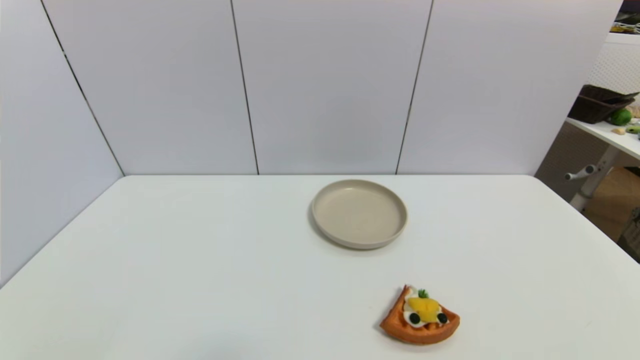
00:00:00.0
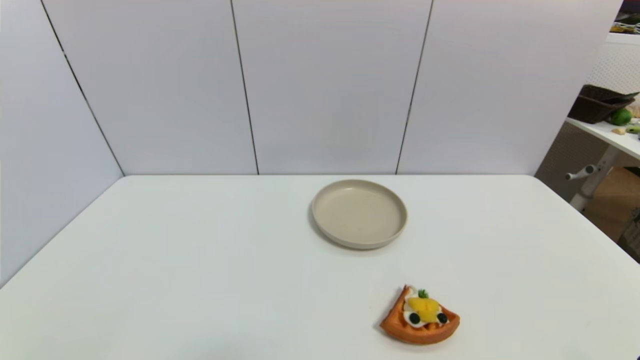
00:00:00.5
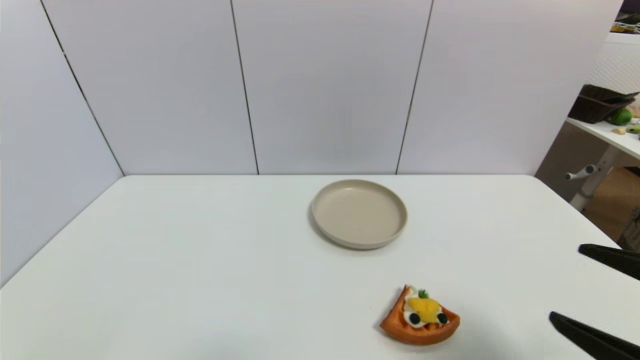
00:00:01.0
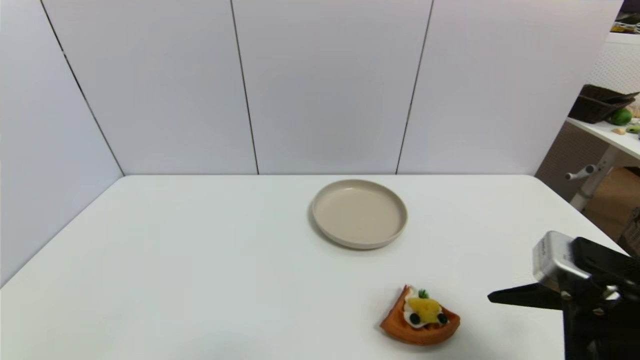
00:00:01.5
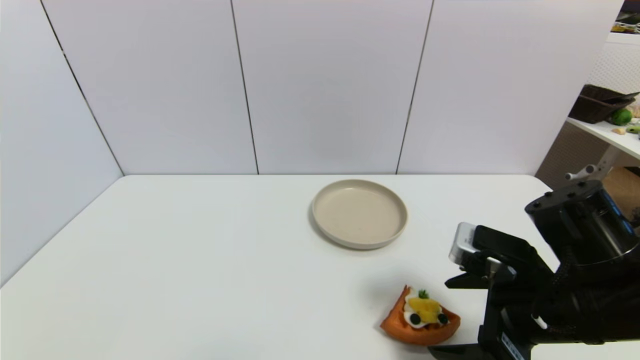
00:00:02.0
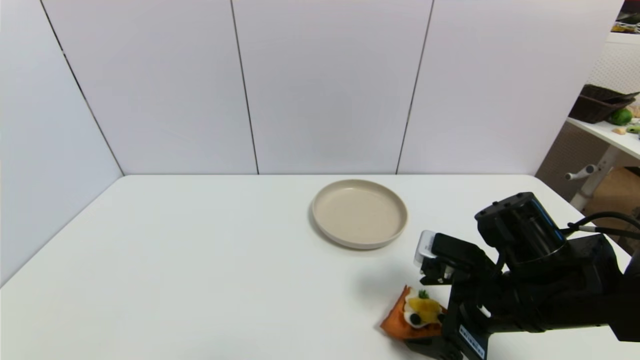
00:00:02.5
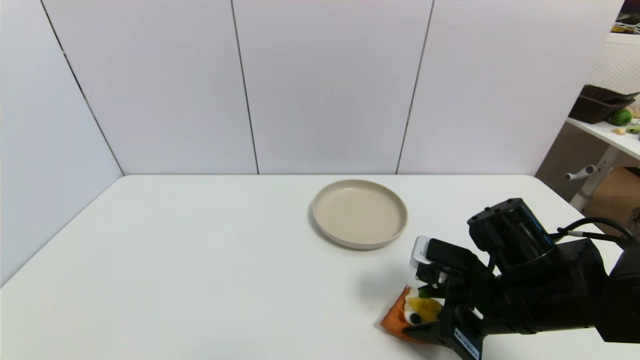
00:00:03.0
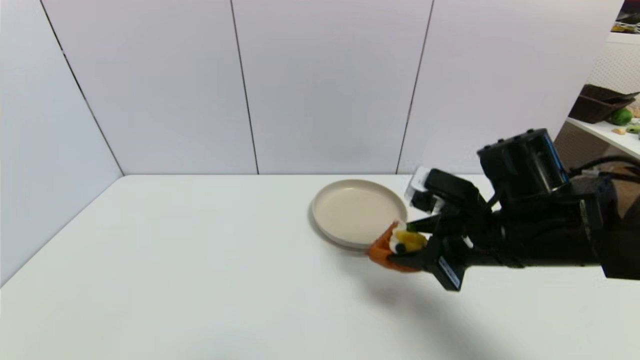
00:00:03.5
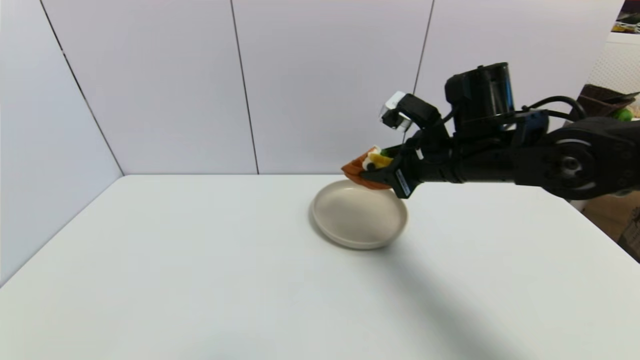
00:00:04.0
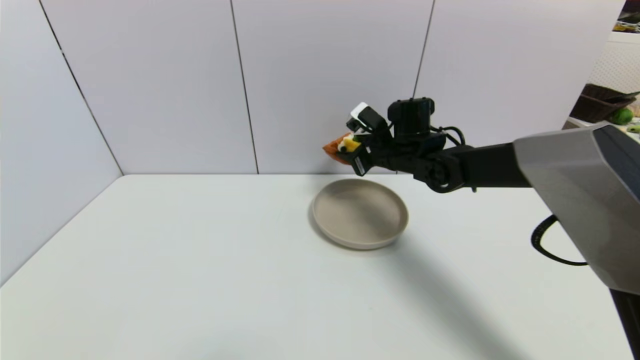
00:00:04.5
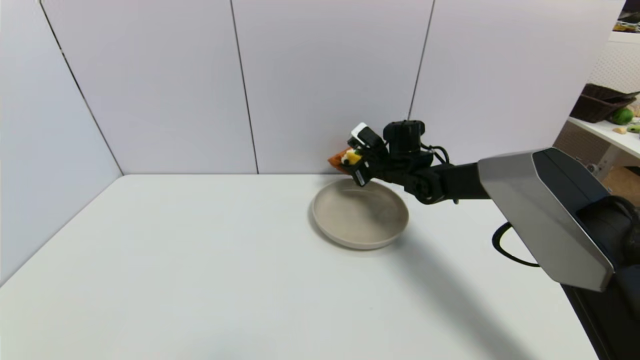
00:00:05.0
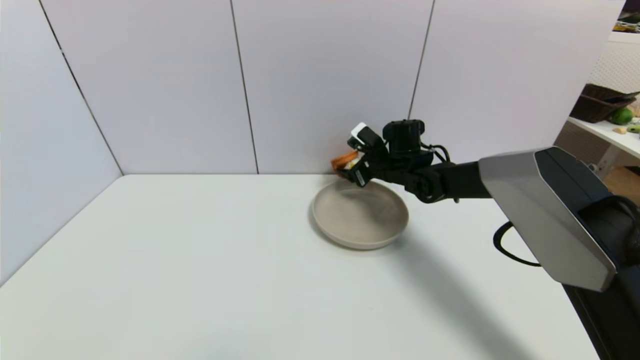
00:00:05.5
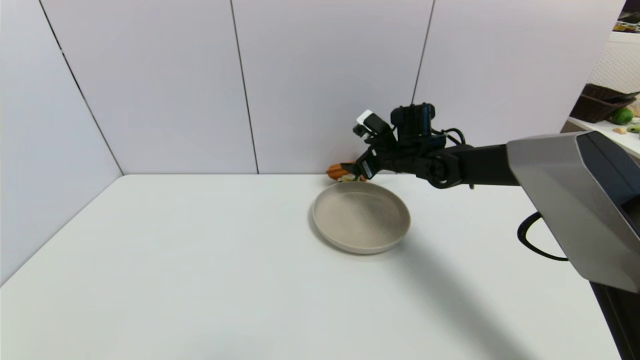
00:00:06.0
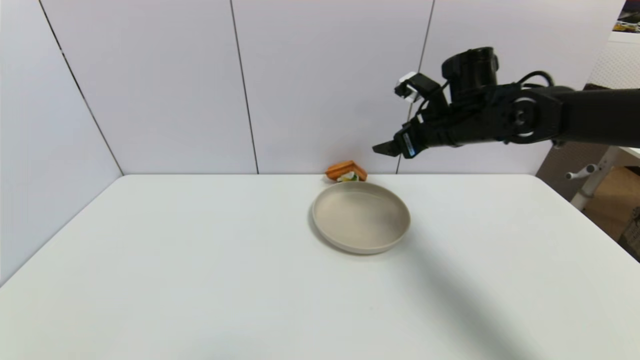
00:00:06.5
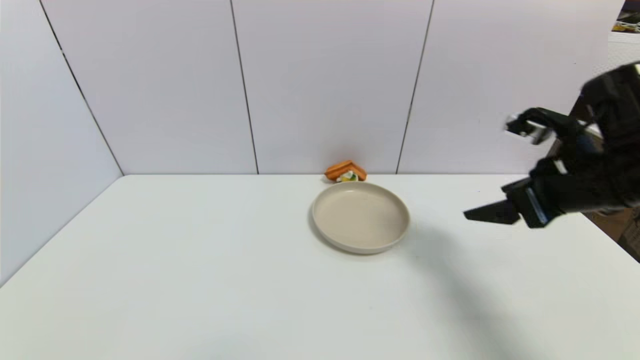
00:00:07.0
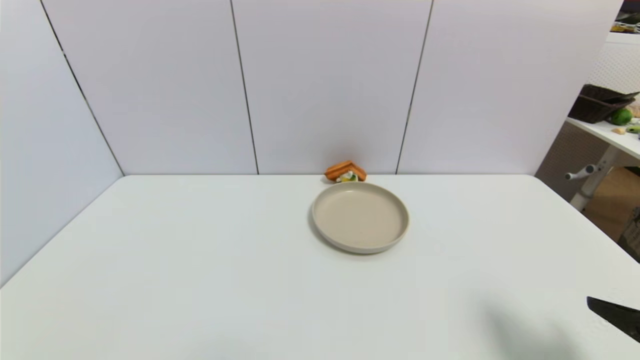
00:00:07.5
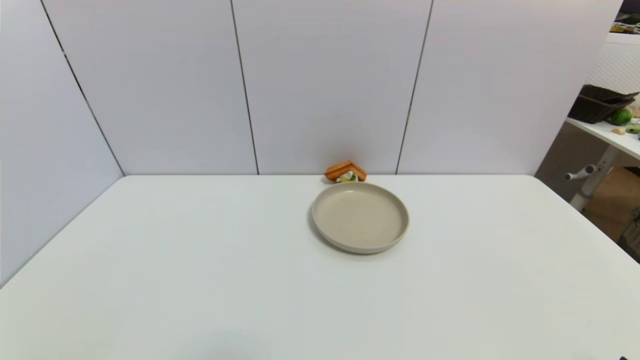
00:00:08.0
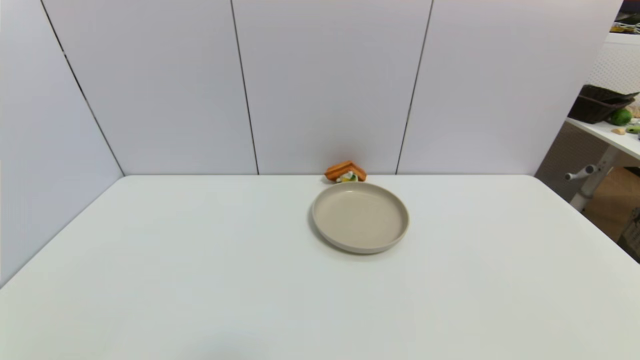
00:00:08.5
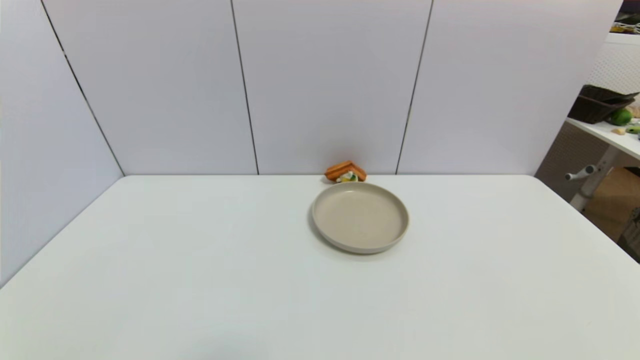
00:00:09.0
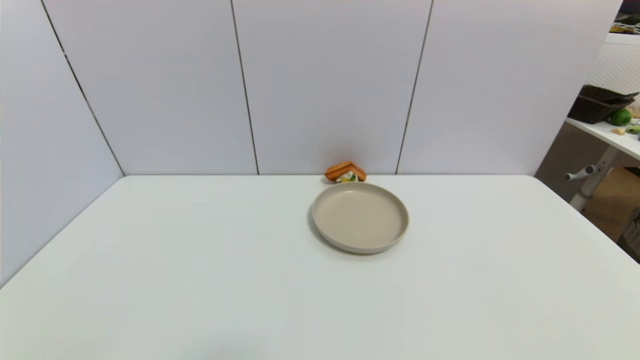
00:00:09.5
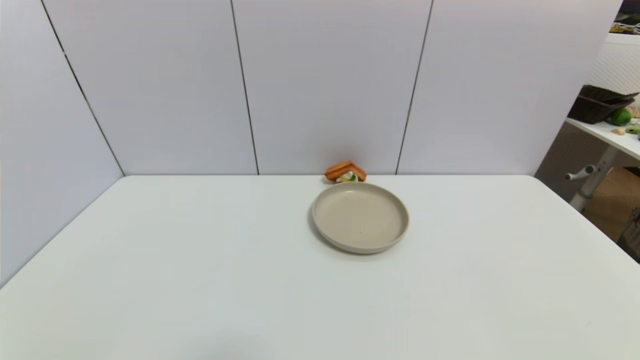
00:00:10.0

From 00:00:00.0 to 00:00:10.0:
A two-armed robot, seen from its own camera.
Step, from 00:00:00.0 to 00:00:03.0: Grasp the pizza with right gripper.
Step, from 00:00:03.5 to 00:00:06.0: Place the pizza on the table with right gripper.
From 00:00:00.0 to 00:00:02.0: The right gripper moves forward, to the left and upward, roughly 25 cm.
From 00:00:02.0 to 00:00:04.0: The right gripper shifts about 15 cm forward and upward, and closes.
From 00:00:04.0 to 00:00:06.0: The right gripper travels forward and downward by about 15 cm, and opens its fingers.
From 00:00:06.0 to 00:00:08.0: The right gripper is displaced backward and to the right by roughly 50 cm.

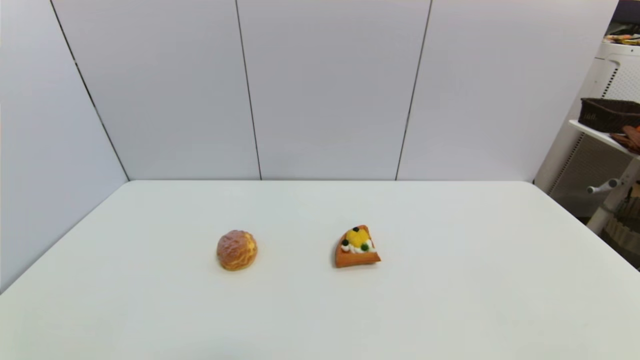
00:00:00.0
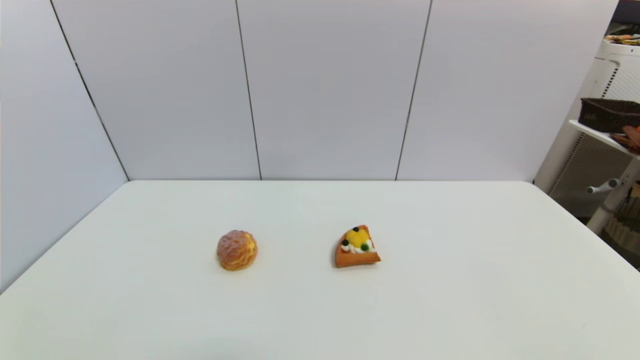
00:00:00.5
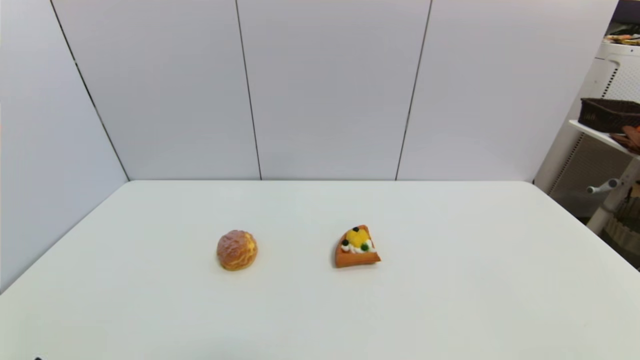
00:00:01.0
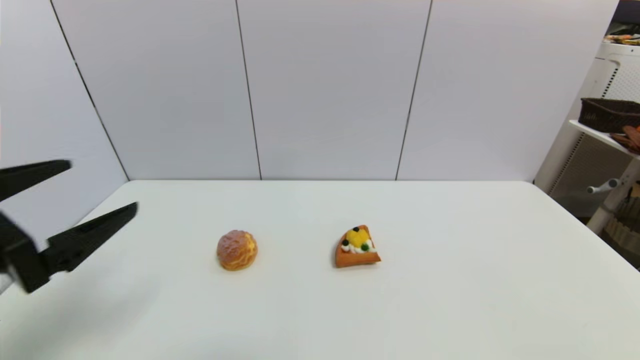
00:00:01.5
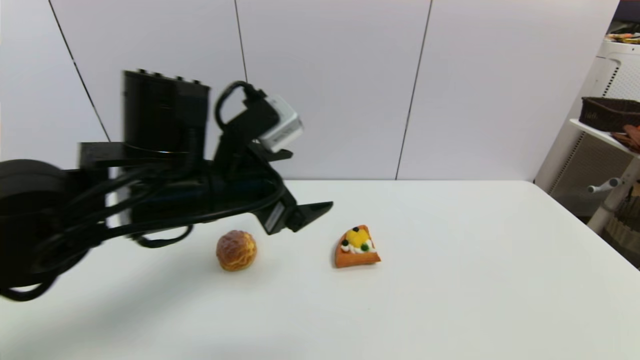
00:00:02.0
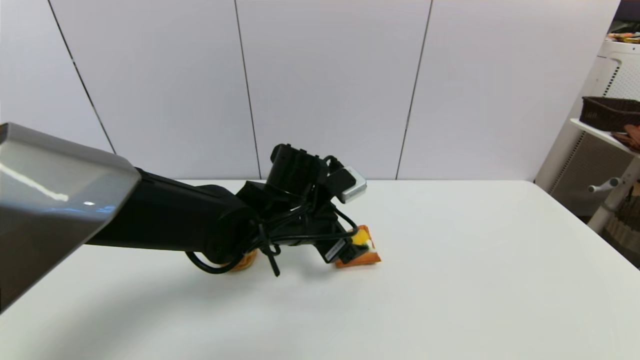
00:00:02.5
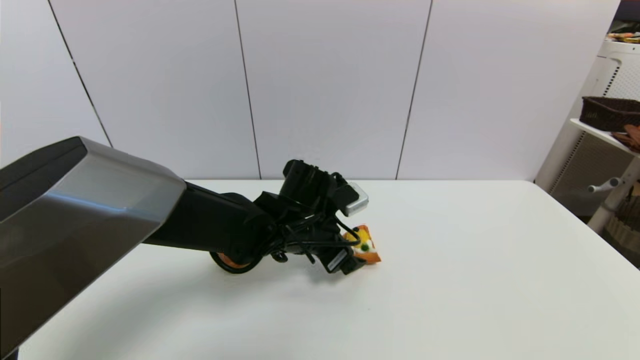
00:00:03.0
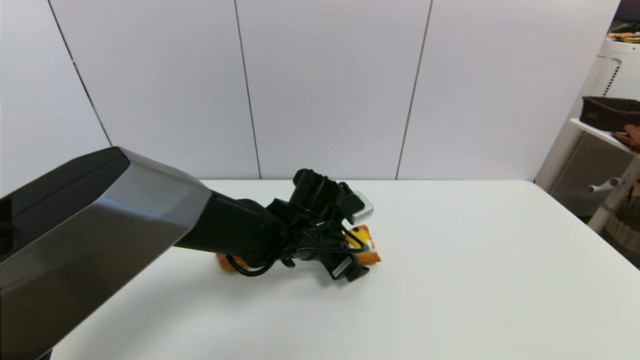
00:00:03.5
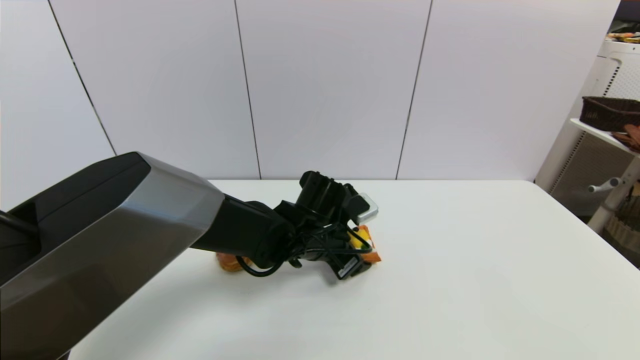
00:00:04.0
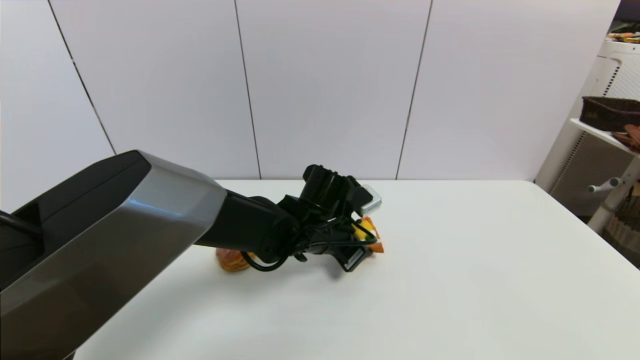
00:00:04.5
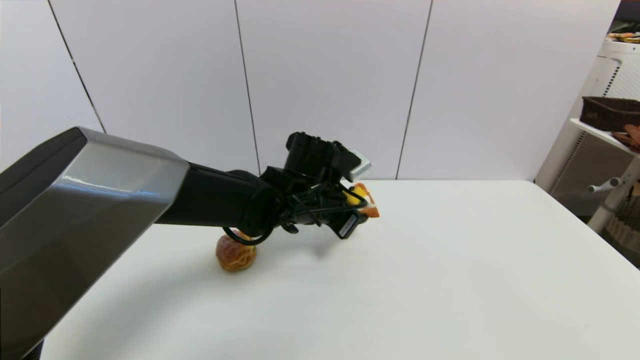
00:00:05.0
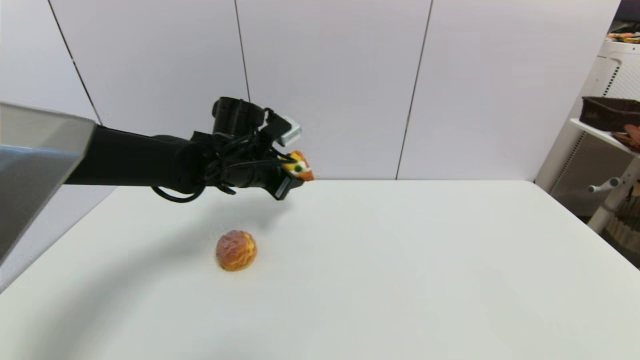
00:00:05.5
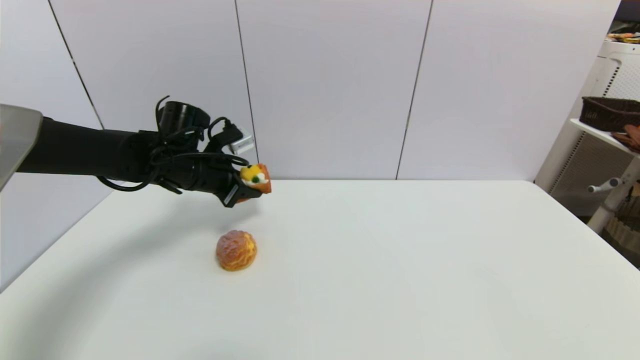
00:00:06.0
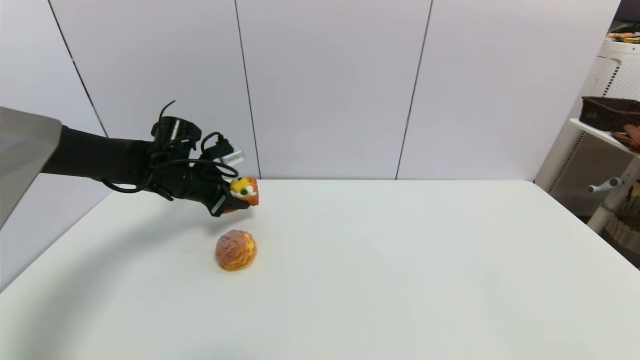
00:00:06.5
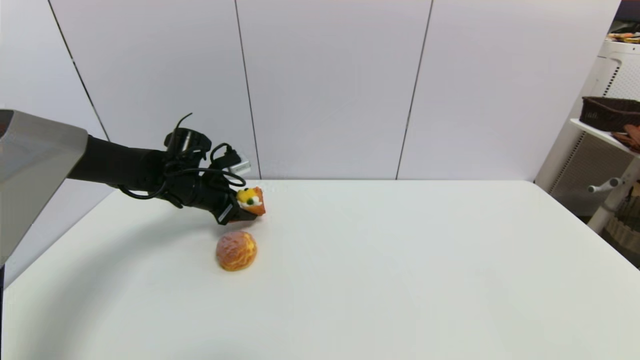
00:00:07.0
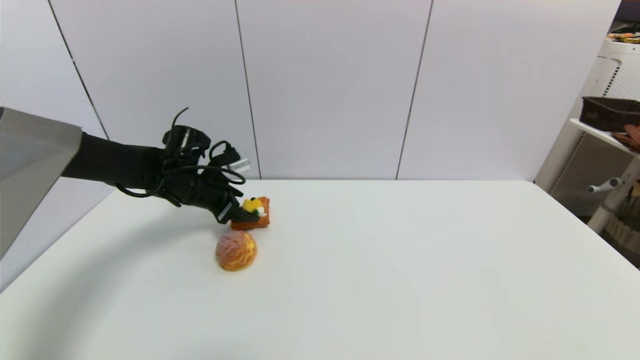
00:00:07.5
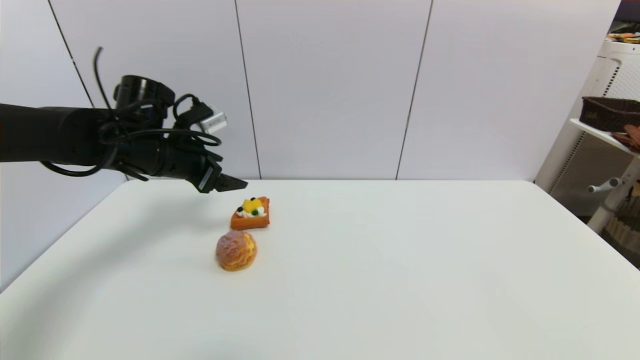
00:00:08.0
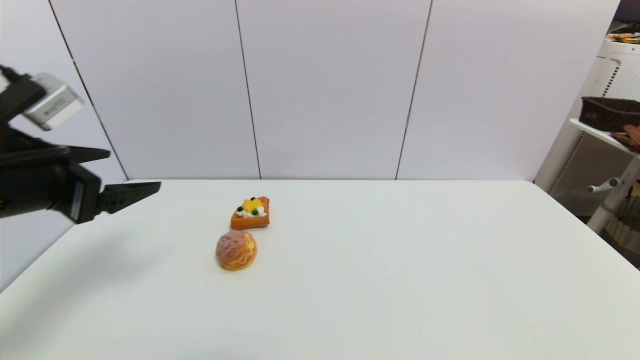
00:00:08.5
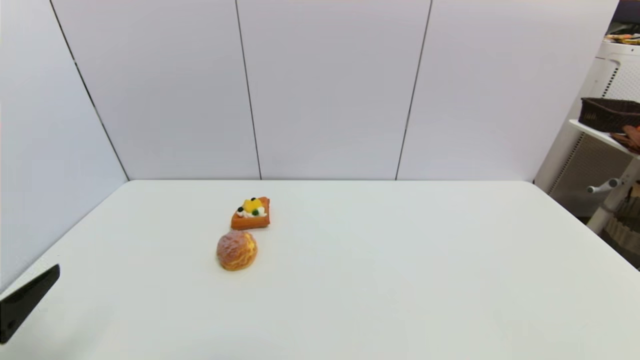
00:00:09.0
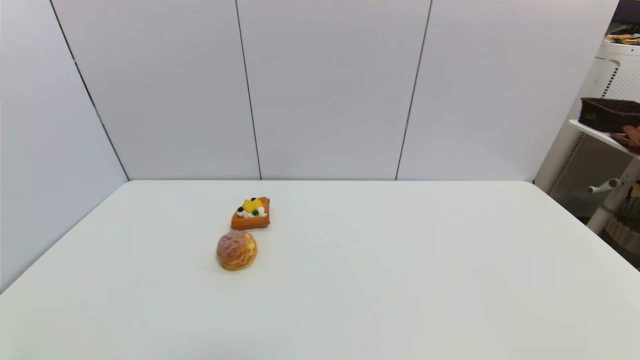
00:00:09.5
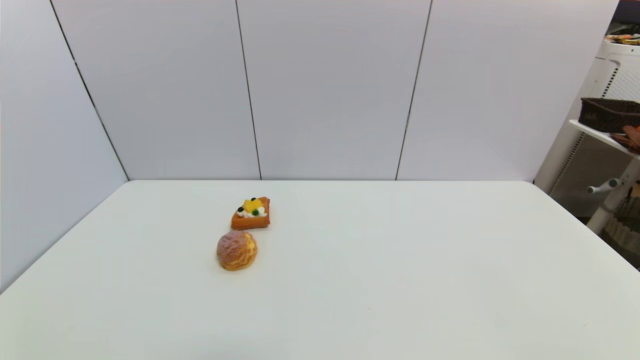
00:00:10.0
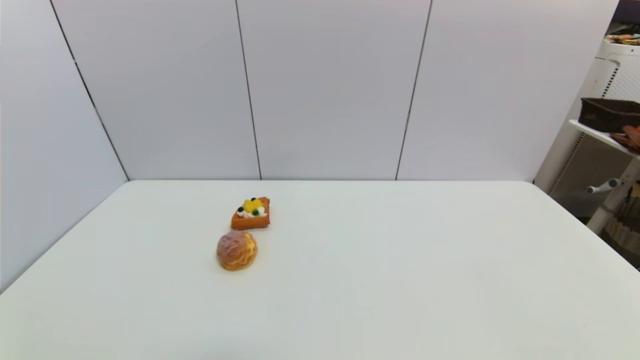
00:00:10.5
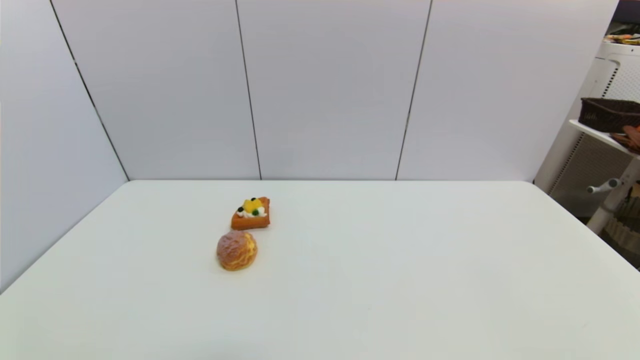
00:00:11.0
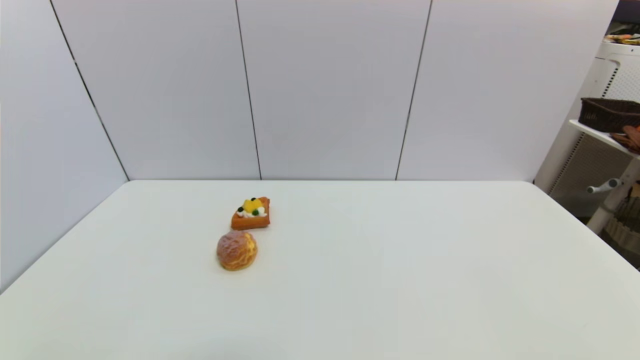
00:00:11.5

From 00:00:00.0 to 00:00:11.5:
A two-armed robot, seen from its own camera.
Step, from 00:00:01.0 to 00:00:04.0: Grasp the pizza with left gripper.
Step, from 00:00:04.5 to 00:00:07.5: Place the pizza on the table with left gripper.
From 00:00:00.0 to 00:00:02.0: The left gripper heads forward, to the right and upward, covering approximately 35 cm.
From 00:00:02.0 to 00:00:04.0: The left gripper goes some 20 cm downward, to the right and forward, and closes.
From 00:00:04.0 to 00:00:06.0: The left gripper goes about 20 cm to the left and upward, and closes.
From 00:00:06.0 to 00:00:07.5: The left gripper shifts by about 5 cm, and opens its fingers.
From 00:00:07.5 to 00:00:09.5: The left gripper is displaced backward by approximately 40 cm.
